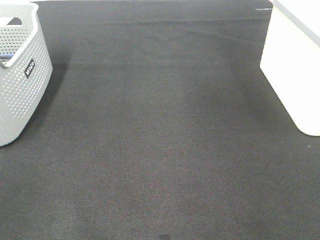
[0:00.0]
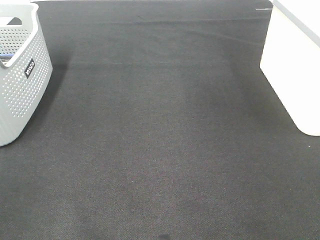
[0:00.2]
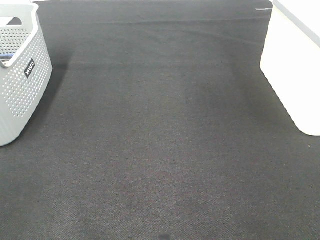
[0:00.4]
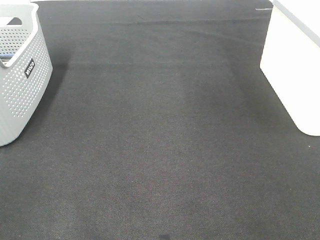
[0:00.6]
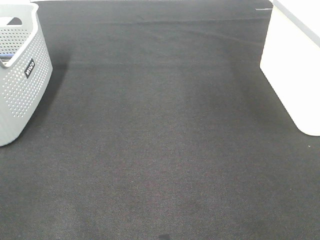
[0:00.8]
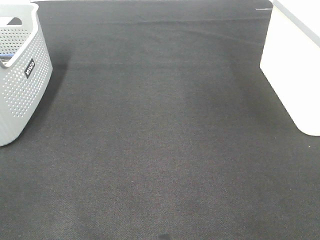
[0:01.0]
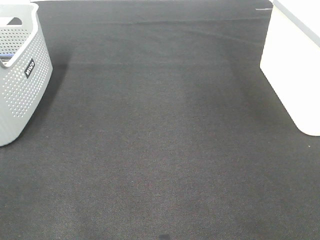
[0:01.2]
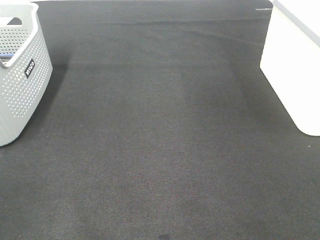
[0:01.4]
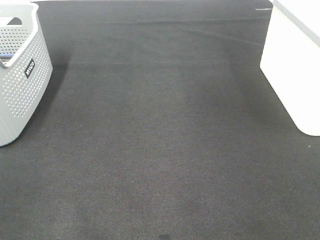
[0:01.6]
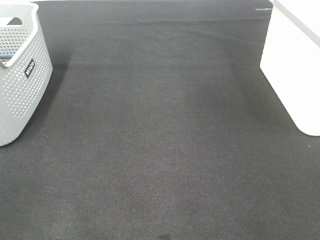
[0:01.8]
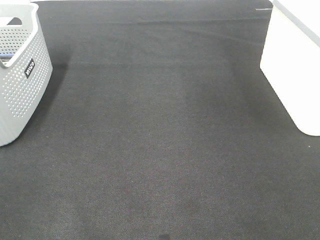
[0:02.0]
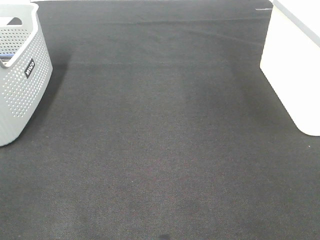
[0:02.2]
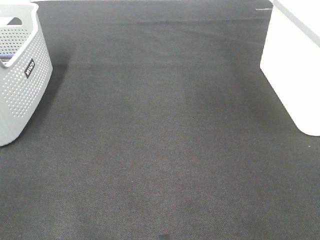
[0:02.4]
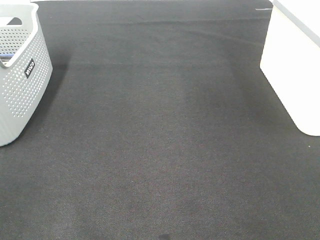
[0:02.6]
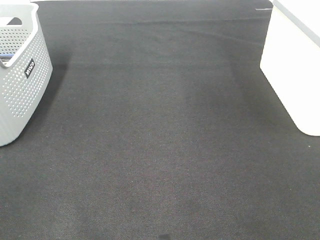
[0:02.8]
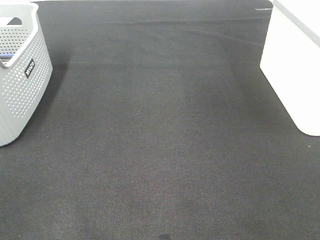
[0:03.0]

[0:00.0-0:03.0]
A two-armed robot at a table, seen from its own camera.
0:01.6 to 0:03.0: Both grippers stay about where they are.

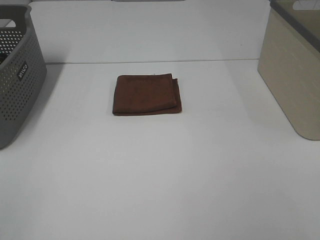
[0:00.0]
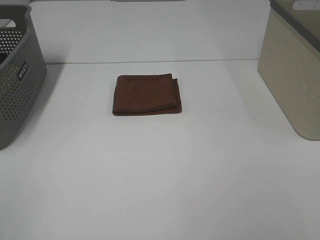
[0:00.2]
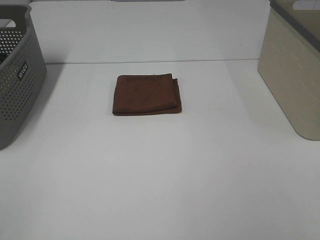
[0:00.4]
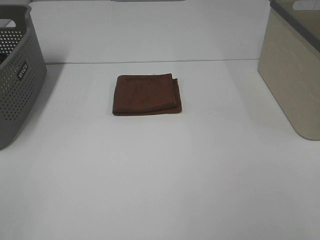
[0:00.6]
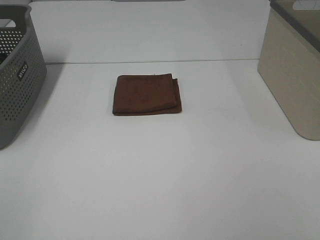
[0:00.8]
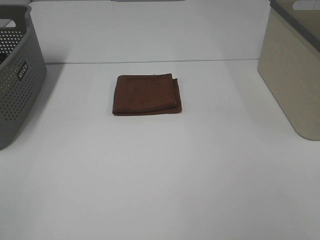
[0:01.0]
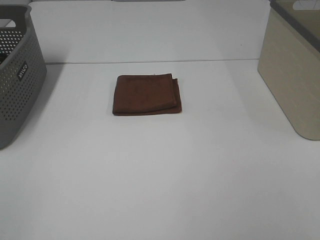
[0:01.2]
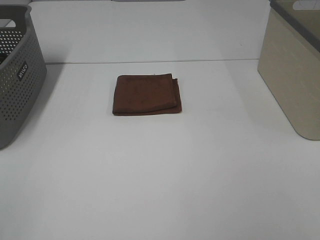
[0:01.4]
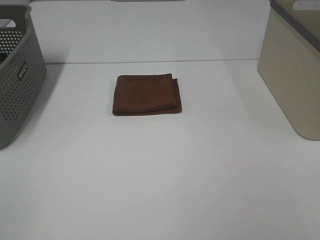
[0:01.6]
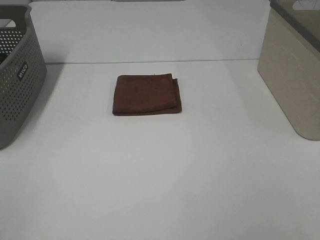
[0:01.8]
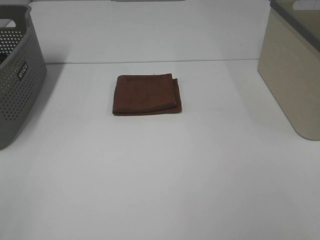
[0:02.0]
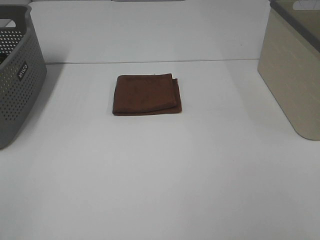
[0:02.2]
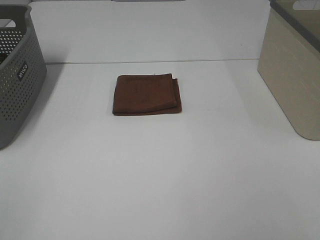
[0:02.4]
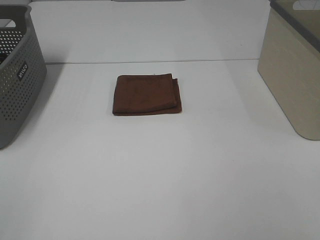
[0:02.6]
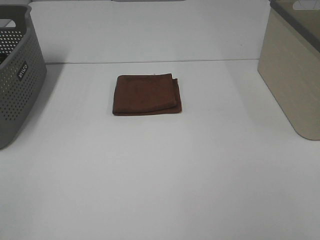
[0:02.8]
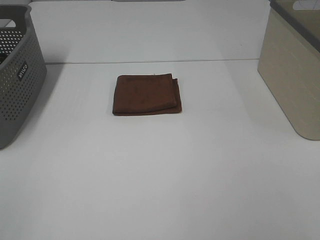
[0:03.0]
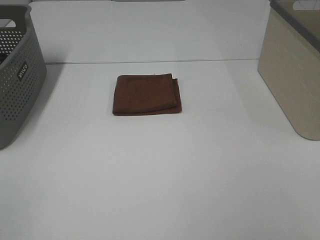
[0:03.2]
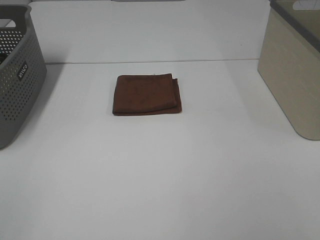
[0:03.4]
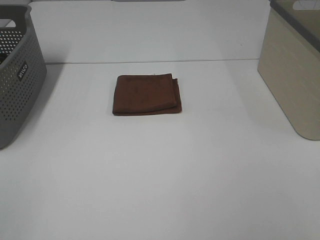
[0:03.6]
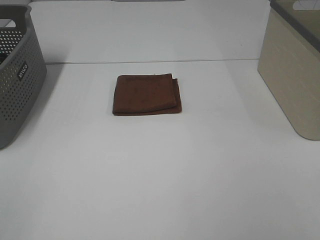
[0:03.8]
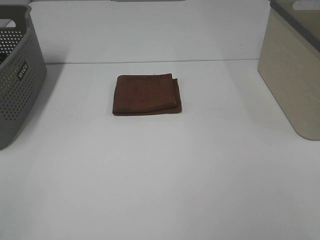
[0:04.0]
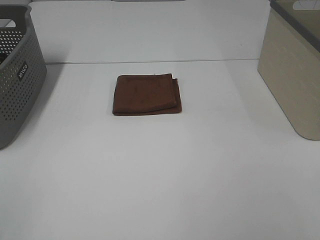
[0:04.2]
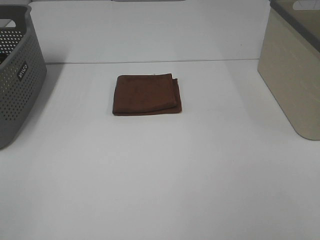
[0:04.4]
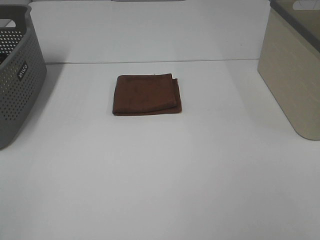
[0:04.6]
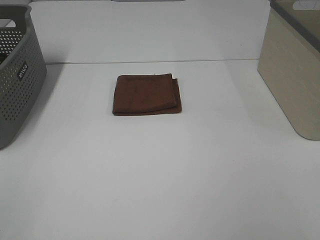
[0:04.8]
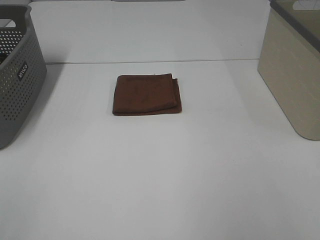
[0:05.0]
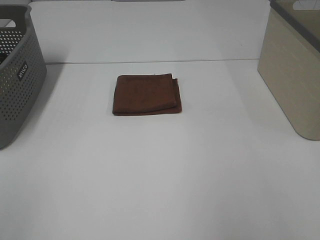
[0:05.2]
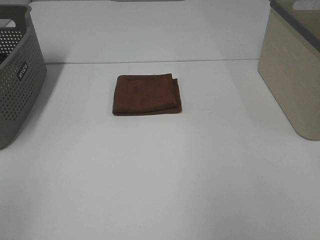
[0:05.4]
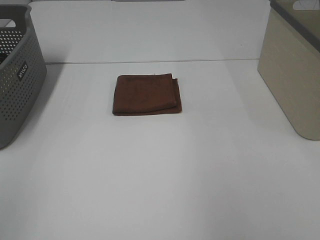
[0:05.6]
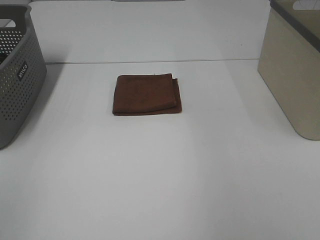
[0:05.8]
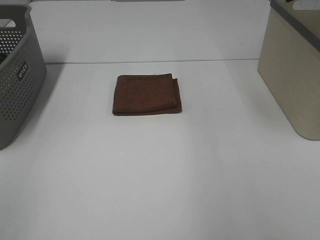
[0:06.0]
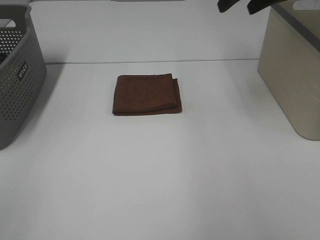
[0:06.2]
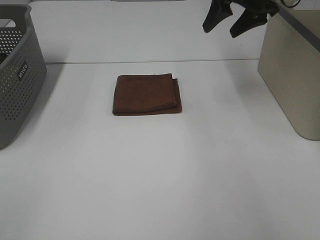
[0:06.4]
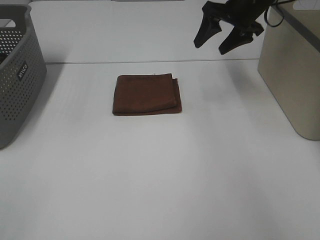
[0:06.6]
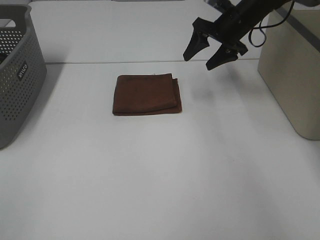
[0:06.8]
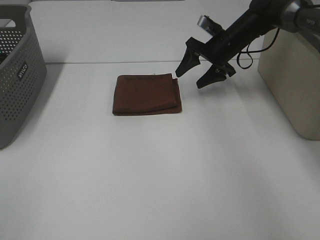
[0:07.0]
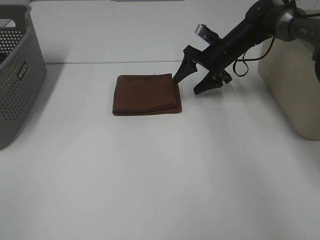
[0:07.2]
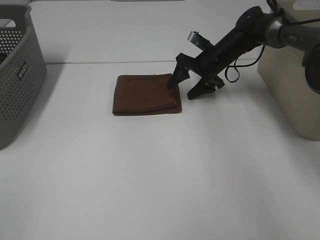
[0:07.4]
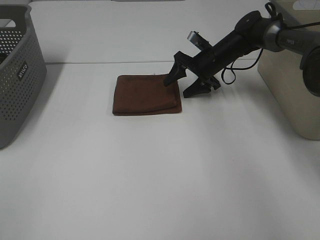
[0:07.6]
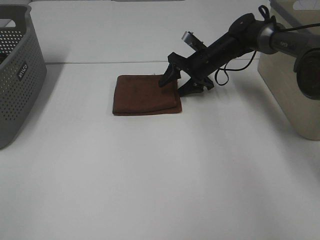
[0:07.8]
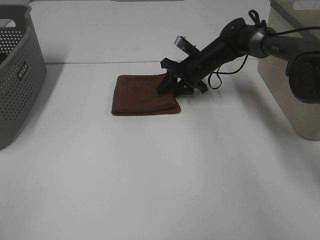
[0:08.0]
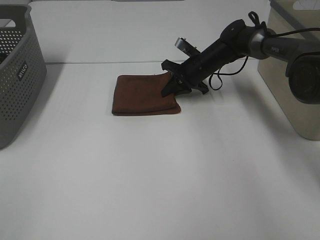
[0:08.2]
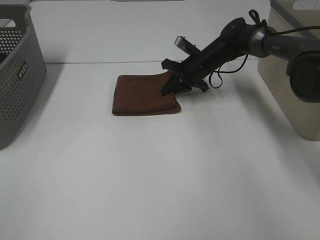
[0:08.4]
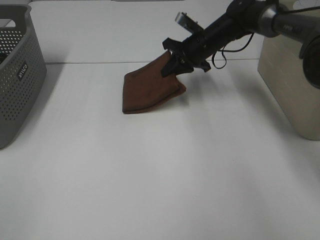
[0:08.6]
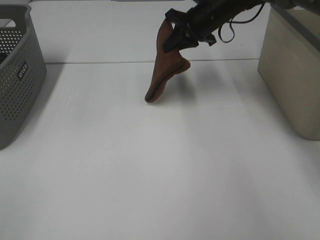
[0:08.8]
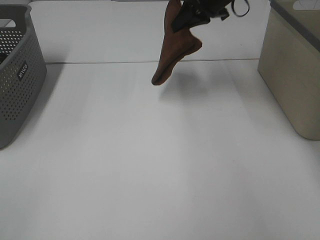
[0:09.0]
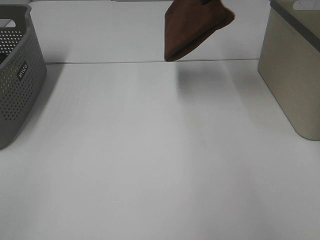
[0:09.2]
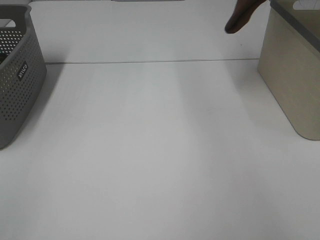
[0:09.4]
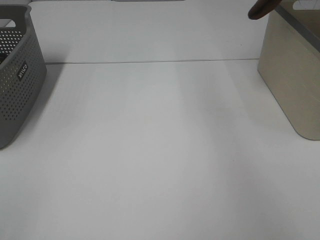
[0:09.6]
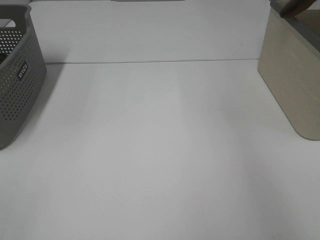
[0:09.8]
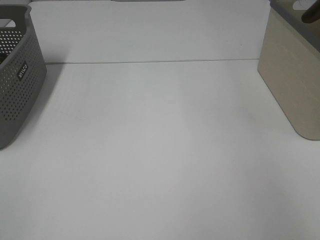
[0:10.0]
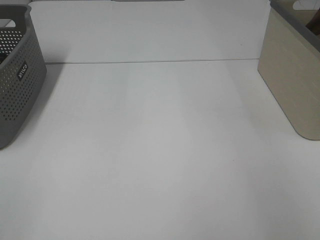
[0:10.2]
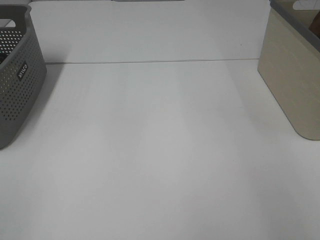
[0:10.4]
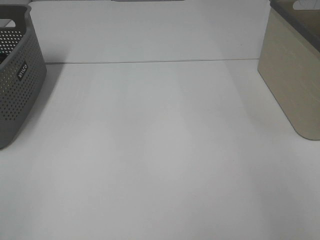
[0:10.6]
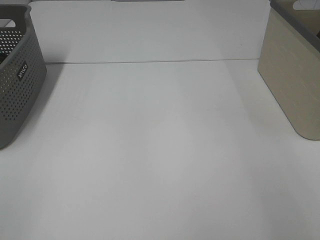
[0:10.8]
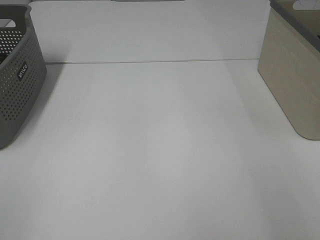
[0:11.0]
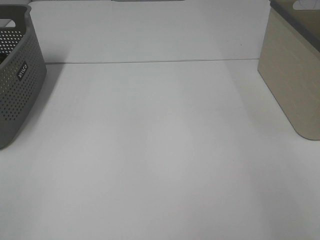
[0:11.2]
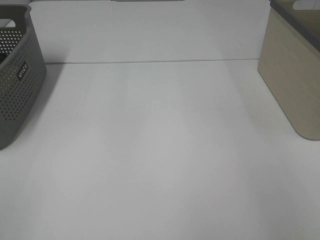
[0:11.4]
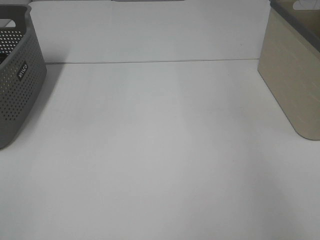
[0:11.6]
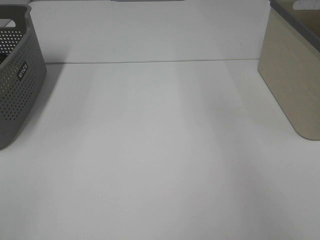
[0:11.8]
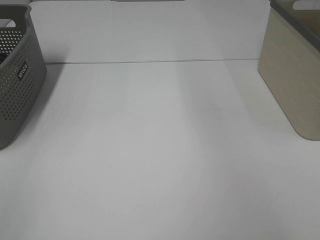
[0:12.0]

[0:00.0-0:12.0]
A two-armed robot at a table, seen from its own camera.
Step, 0:00.0 to 0:08.2: Right hand: grab the folded brown towel.
Step, 0:08.4 to 0:11.2: Right hand: place the brown towel in right basket.
0:00.0 to 0:04.4: Both grippers stay put.
0:06.0 to 0:07.6: The right gripper shifts some 30 cm downward and forward.
0:07.6 to 0:09.0: The right gripper heads upward, covering approximately 20 cm, and closes.
0:09.0 to 0:10.4: The right gripper is displaced to the right by roughly 30 cm.

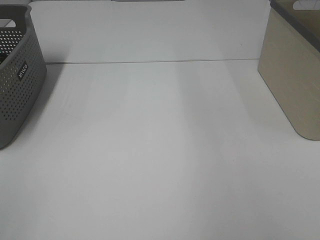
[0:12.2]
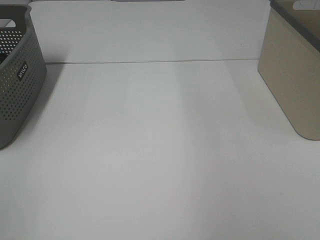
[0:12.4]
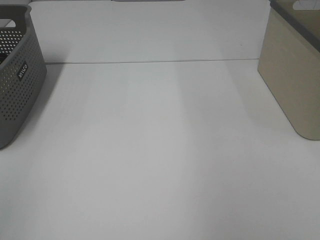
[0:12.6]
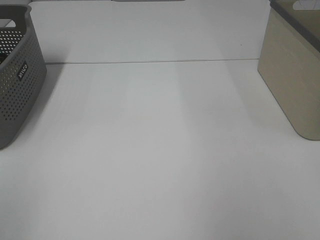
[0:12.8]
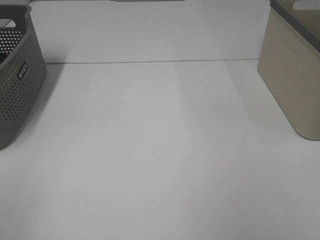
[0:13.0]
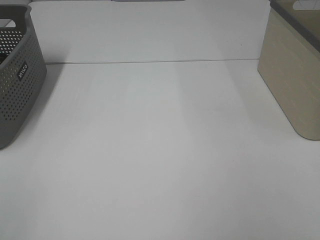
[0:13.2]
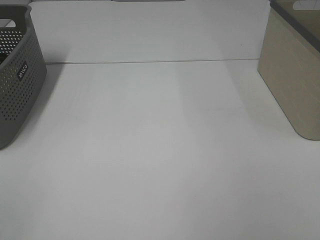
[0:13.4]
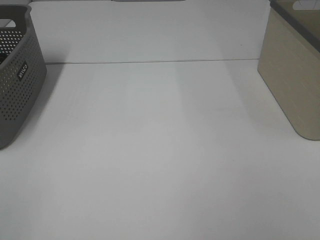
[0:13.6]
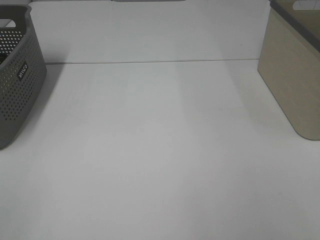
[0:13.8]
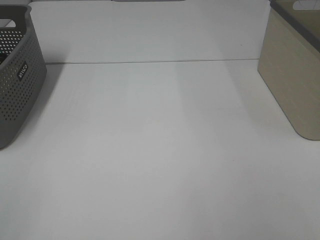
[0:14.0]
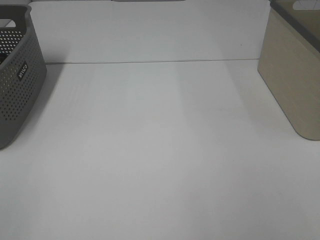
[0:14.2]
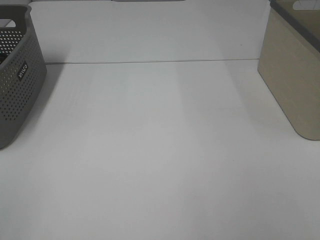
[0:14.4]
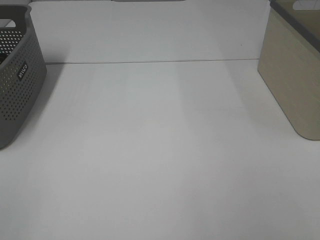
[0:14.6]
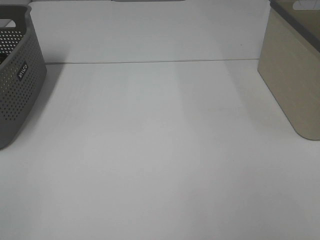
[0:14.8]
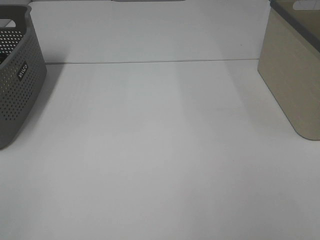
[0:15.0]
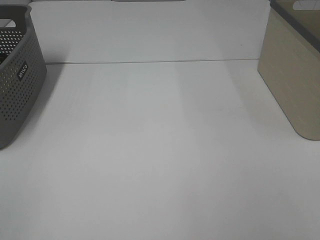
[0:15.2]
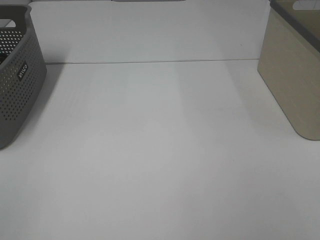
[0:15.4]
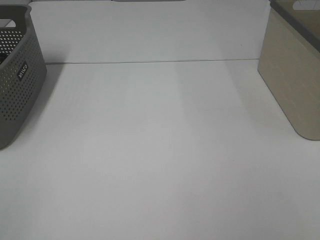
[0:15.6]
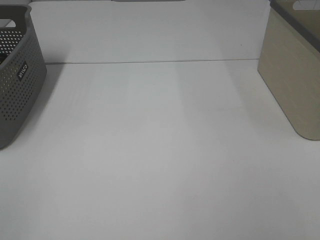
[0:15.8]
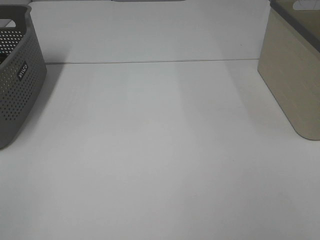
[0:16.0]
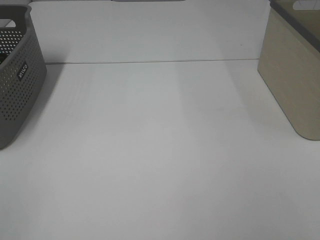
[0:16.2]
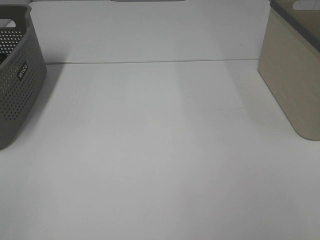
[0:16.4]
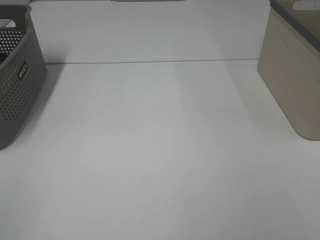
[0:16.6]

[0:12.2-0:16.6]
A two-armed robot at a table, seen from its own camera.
0:15.2 to 0:16.6: Neither gripper changes place.

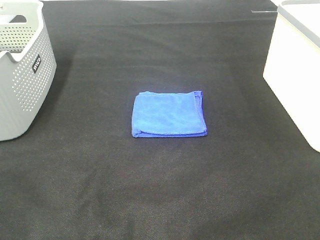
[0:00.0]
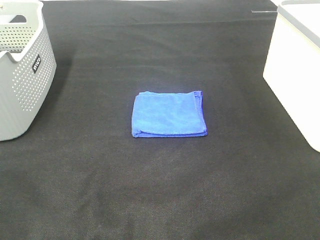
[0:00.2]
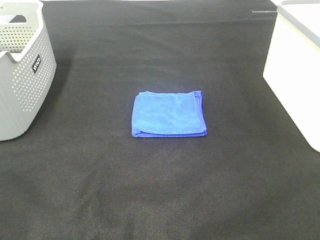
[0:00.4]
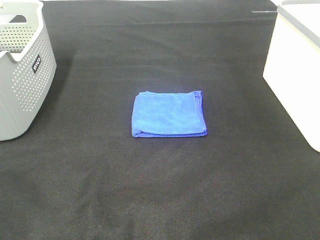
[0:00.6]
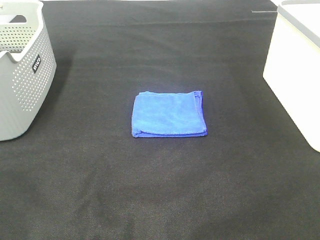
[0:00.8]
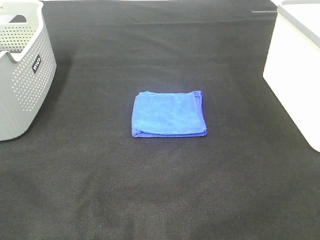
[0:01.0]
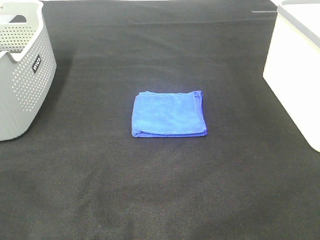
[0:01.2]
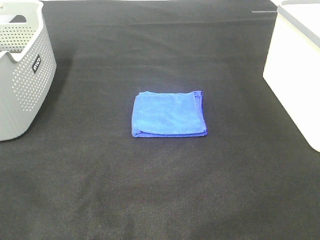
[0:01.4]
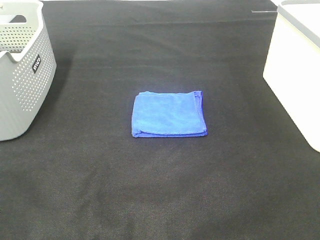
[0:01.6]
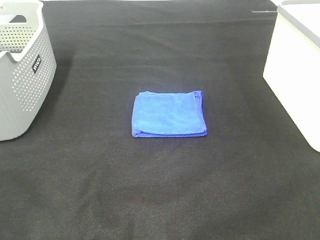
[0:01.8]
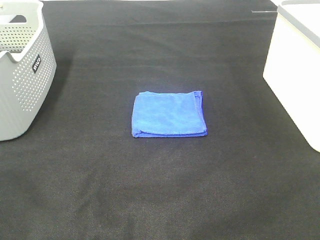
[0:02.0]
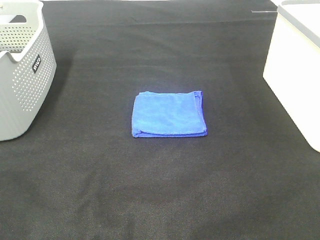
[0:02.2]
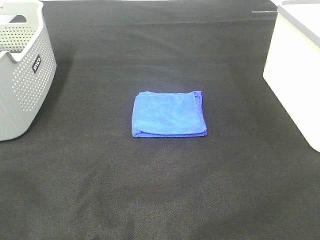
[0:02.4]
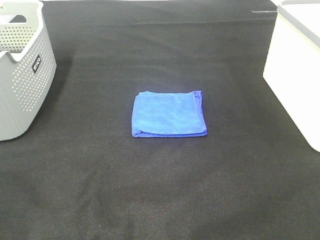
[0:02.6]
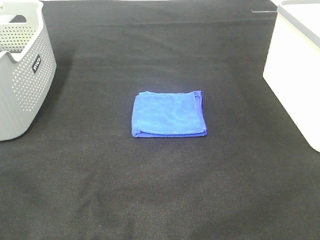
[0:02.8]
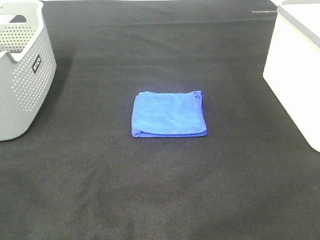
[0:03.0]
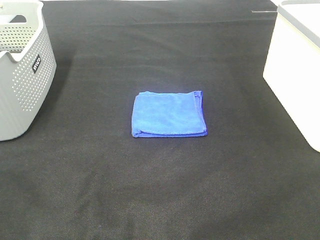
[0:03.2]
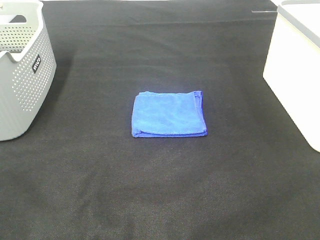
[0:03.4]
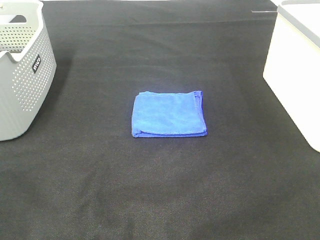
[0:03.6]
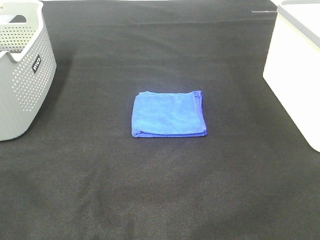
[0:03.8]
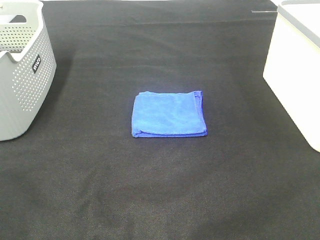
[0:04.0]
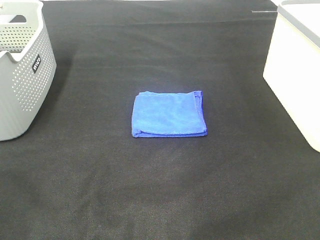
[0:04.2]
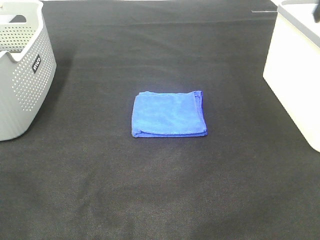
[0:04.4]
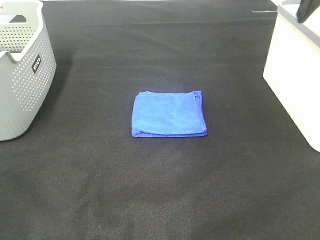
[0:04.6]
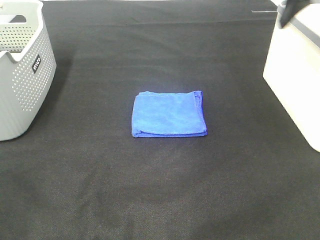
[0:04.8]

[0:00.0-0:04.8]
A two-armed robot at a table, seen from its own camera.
0:00.0 to 0:03.2: Both grippers stay put.
0:03.2 to 0:04.8: The right gripper moves forward, approximately 35 cm.
